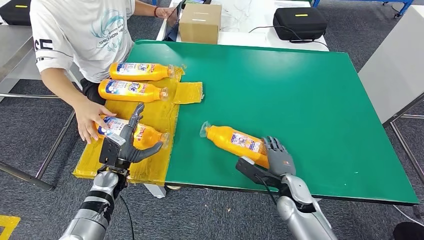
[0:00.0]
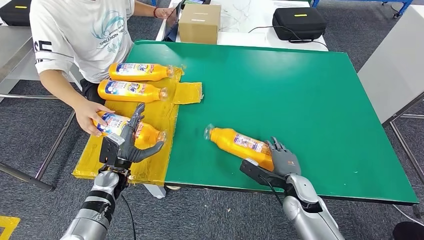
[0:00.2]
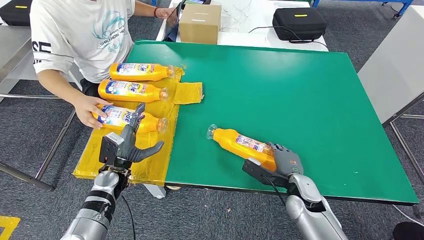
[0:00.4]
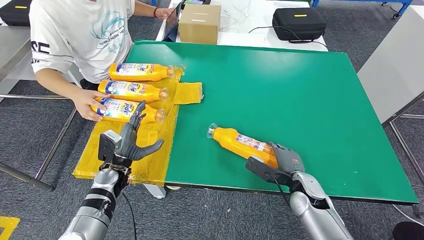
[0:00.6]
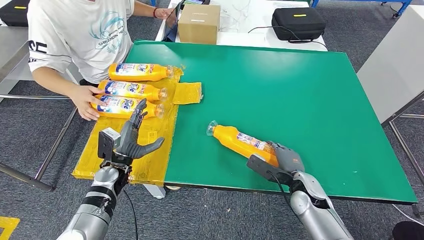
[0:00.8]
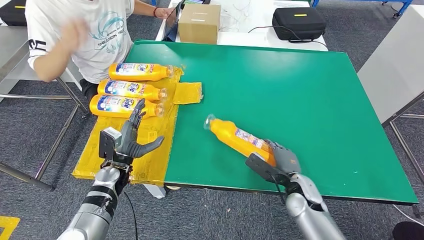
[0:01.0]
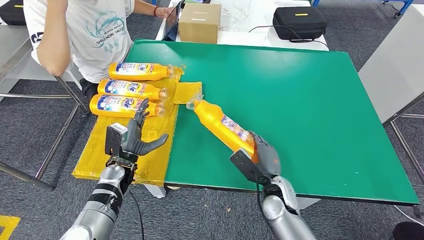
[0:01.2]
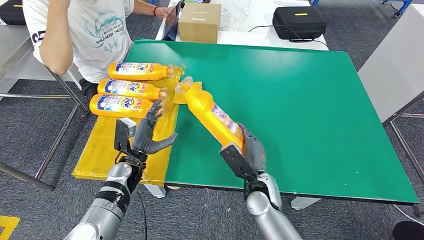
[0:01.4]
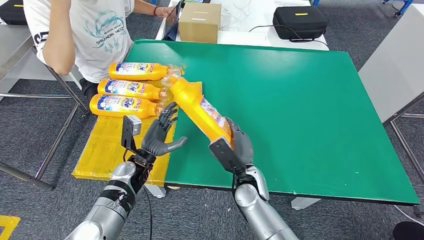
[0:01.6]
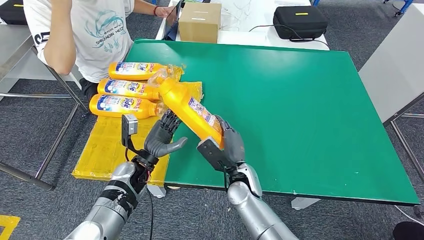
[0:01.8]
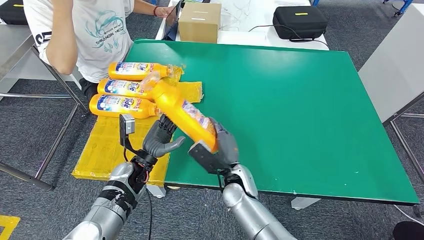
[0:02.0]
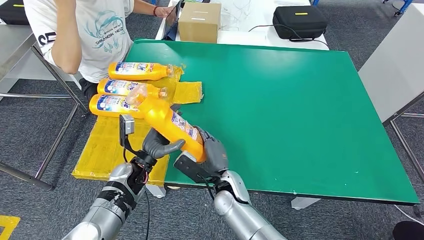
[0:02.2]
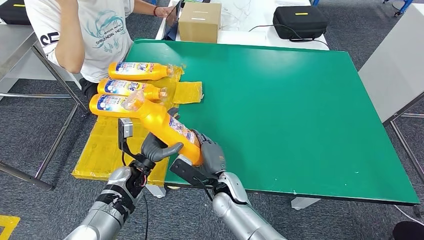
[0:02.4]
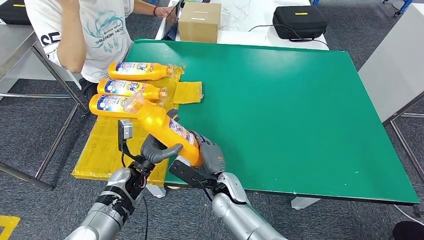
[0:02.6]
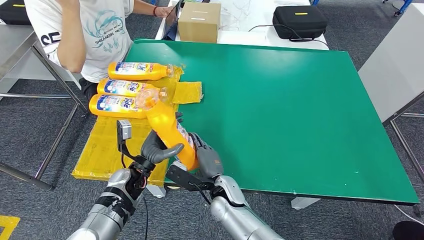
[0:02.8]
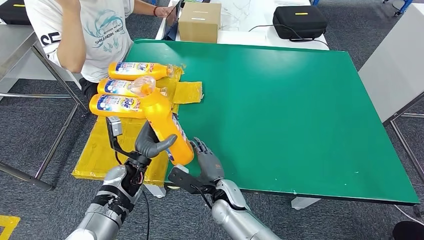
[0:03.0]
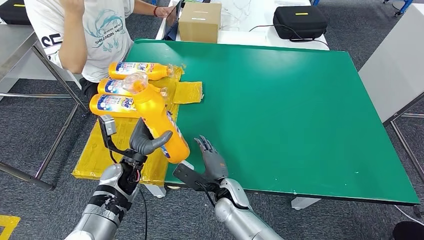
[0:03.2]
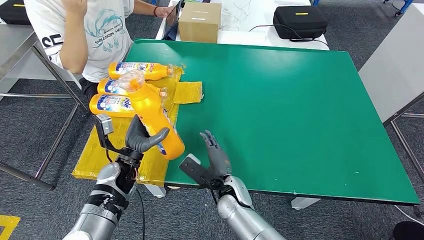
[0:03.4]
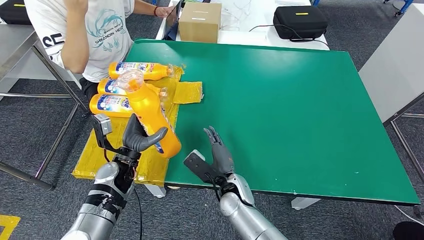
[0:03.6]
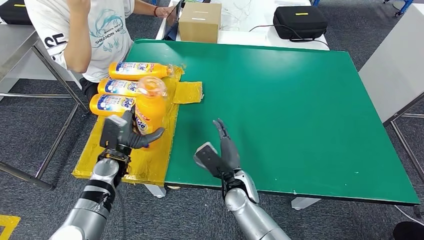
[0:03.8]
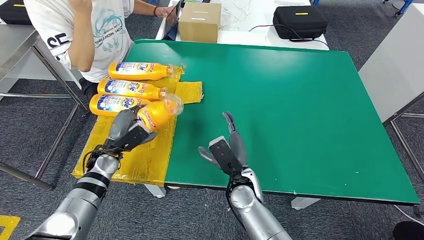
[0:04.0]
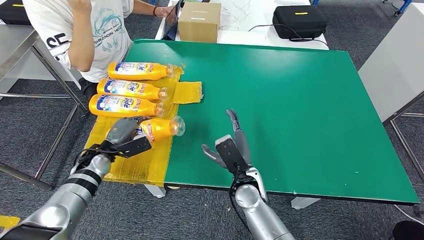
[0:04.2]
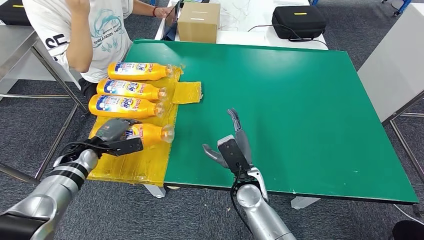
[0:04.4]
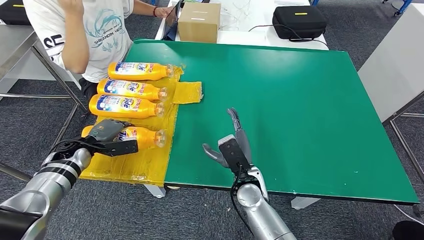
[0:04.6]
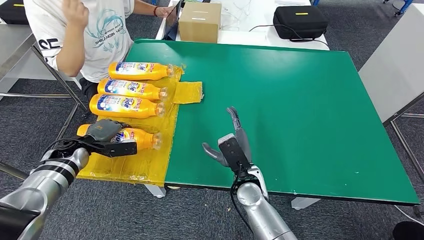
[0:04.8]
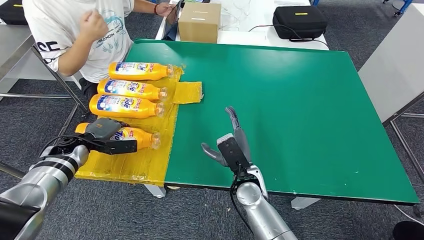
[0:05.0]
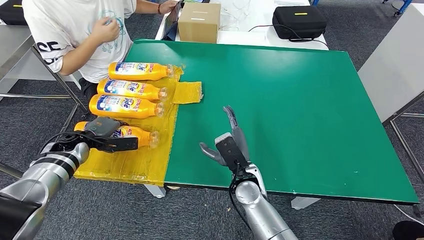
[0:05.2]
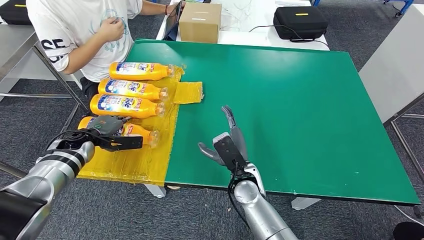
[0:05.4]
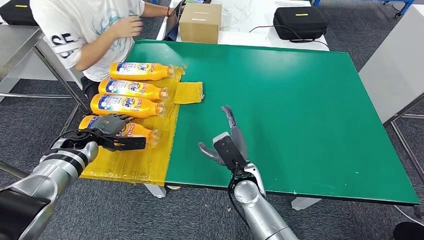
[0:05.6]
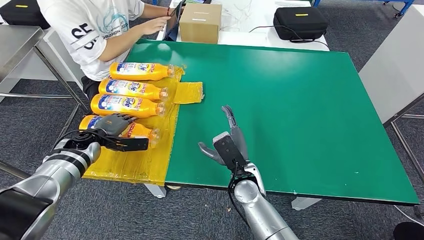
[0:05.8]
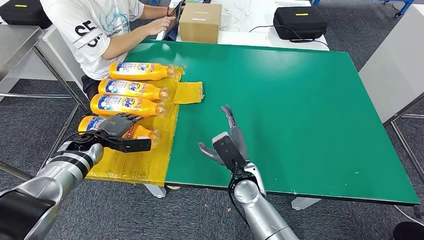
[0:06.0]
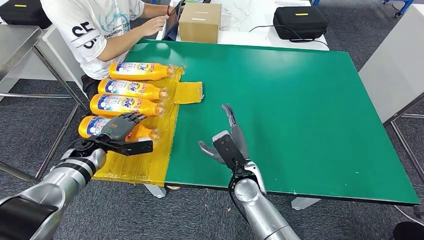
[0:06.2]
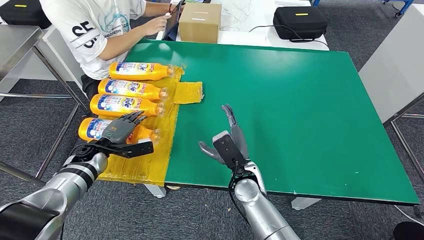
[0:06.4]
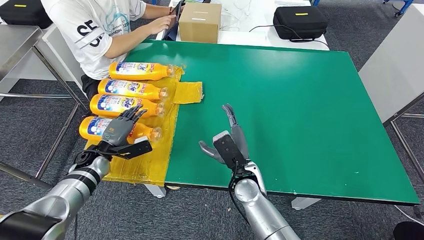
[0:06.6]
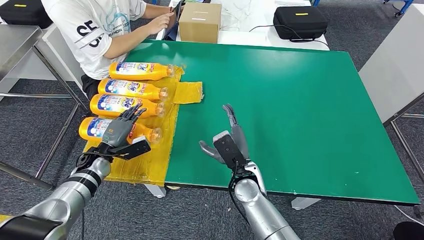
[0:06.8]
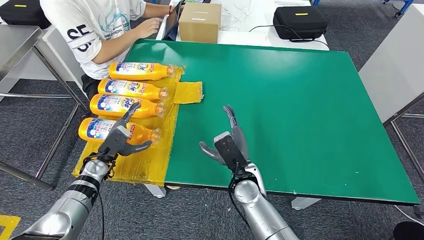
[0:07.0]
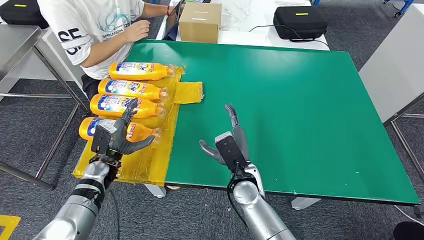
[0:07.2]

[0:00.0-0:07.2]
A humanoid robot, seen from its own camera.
Step, 0:00.0 to 0:01.8: Pick up the fast-moving consumer goods bottle from the table.
Step, 0:02.4 to 0:07.0: Flip the fast-moving consumer goods bottle to the front side.
0:01.4 to 0:02.8: The right hand shifts some 10 cm to the left.
0:02.8 to 0:04.4: The right hand goes approximately 5 cm to the right. Meanwhile the left hand moves to the left, approximately 20 cm.
0:05.8 to 0:07.2: The left hand travels to the right and backward by some 10 cm.
